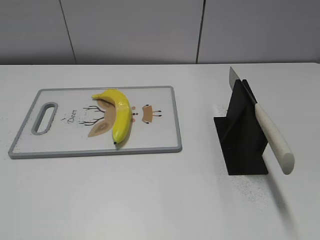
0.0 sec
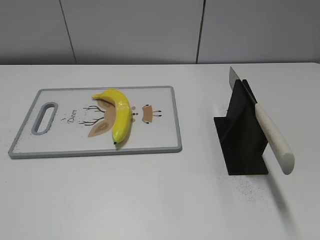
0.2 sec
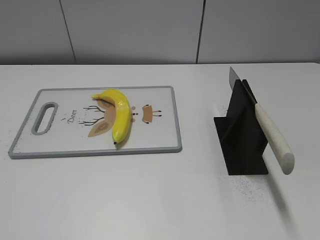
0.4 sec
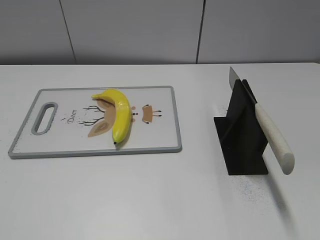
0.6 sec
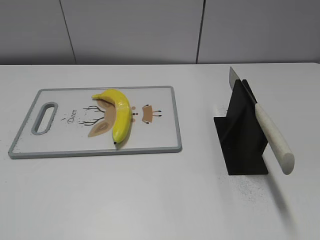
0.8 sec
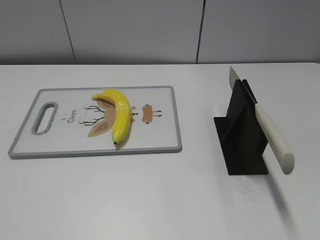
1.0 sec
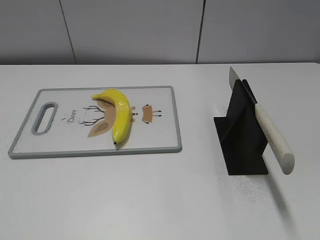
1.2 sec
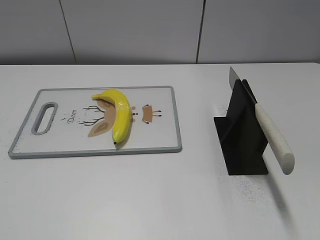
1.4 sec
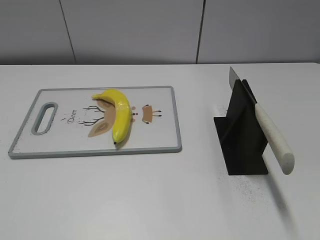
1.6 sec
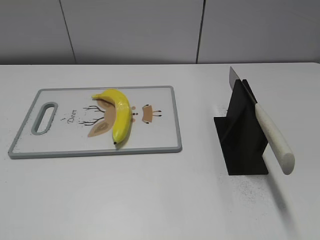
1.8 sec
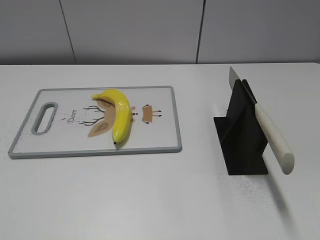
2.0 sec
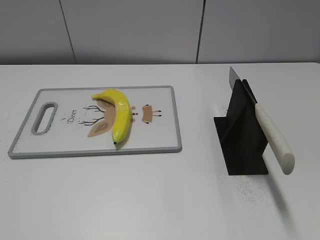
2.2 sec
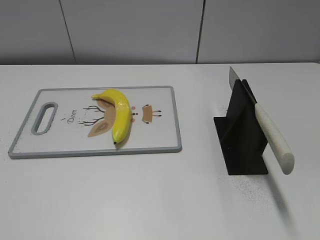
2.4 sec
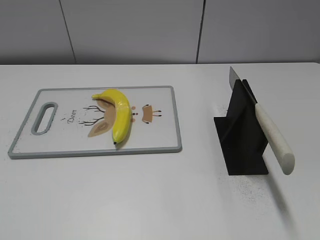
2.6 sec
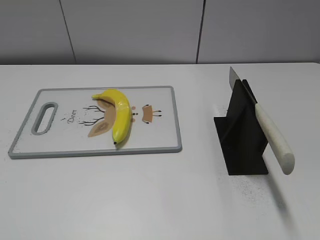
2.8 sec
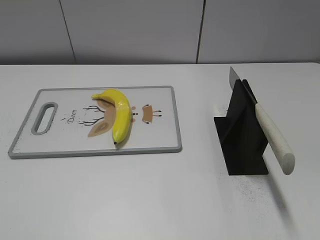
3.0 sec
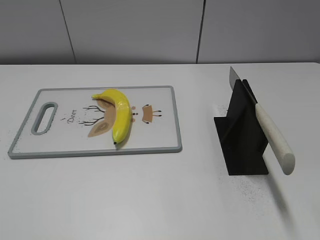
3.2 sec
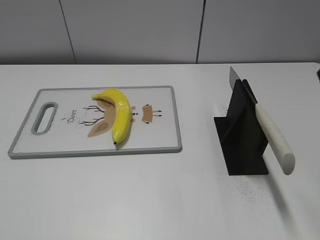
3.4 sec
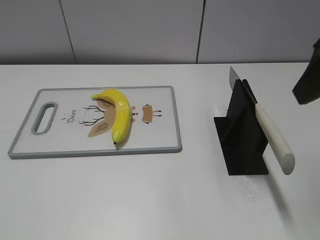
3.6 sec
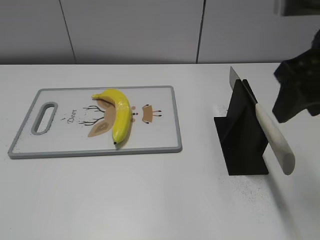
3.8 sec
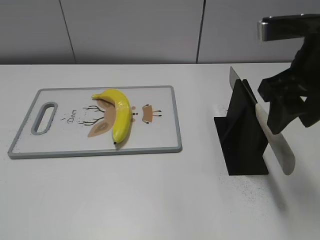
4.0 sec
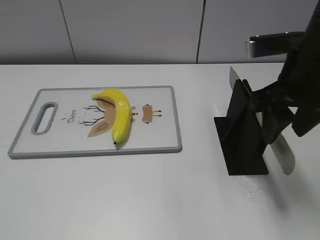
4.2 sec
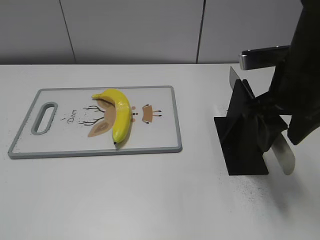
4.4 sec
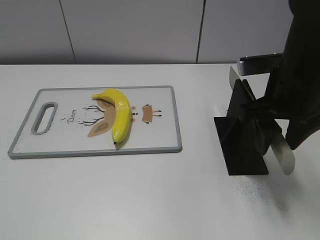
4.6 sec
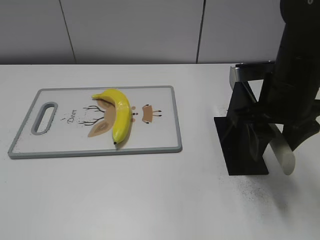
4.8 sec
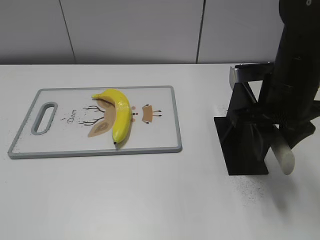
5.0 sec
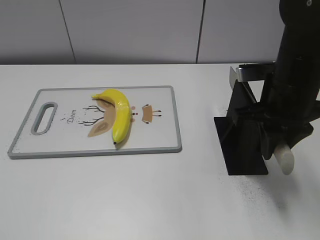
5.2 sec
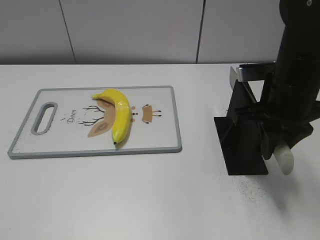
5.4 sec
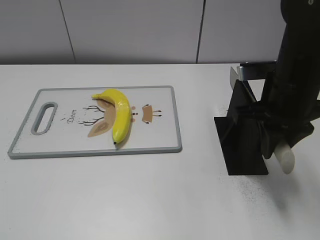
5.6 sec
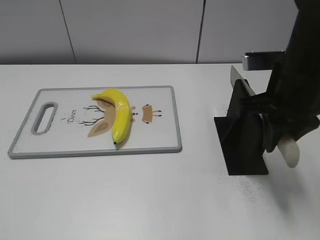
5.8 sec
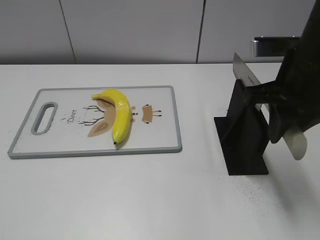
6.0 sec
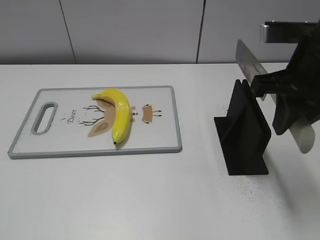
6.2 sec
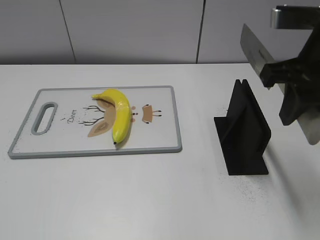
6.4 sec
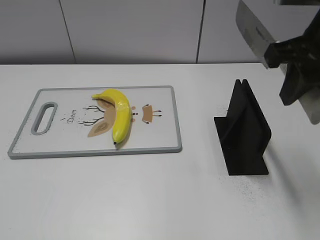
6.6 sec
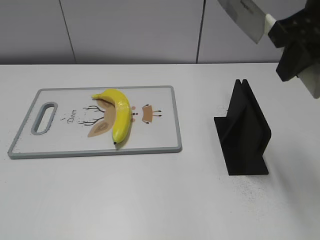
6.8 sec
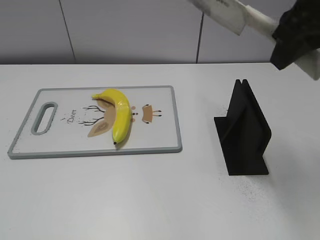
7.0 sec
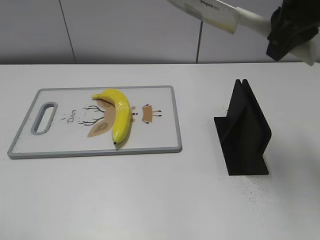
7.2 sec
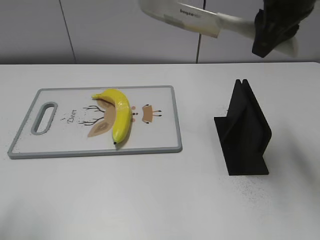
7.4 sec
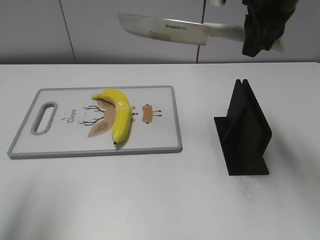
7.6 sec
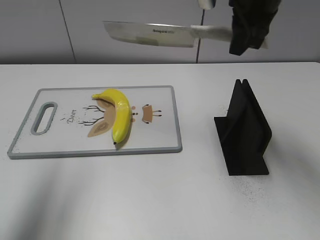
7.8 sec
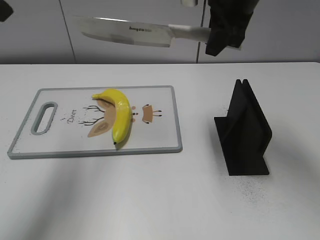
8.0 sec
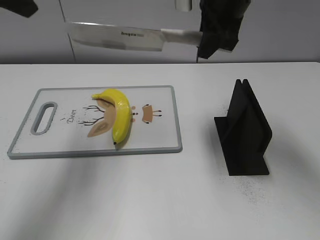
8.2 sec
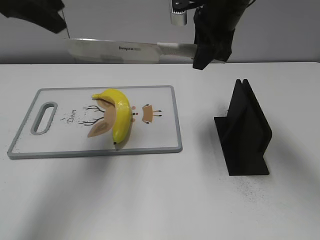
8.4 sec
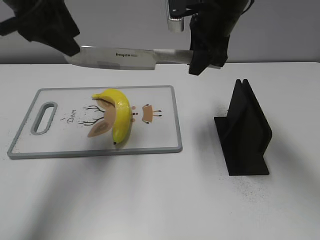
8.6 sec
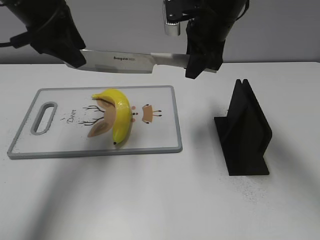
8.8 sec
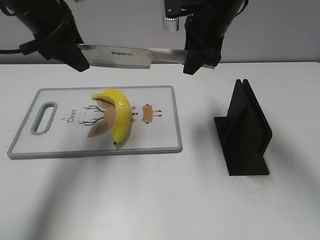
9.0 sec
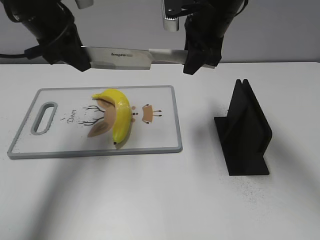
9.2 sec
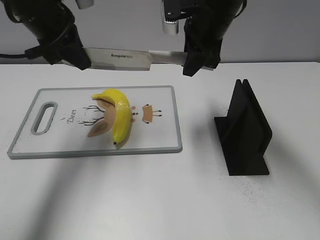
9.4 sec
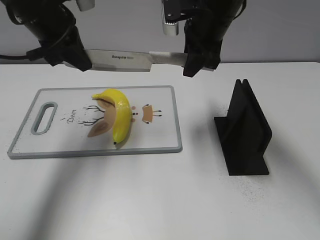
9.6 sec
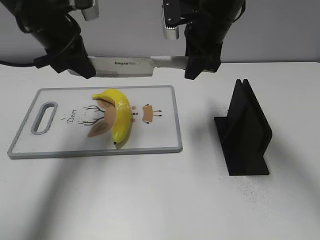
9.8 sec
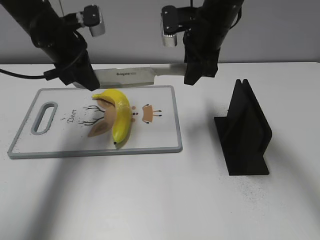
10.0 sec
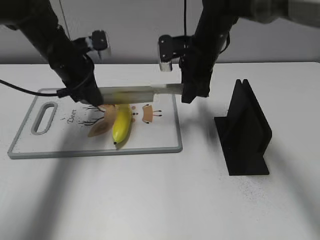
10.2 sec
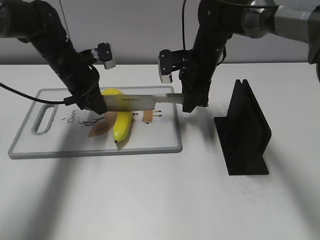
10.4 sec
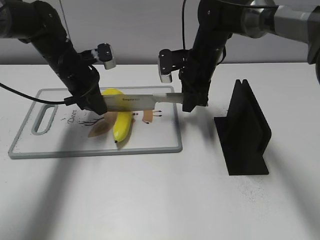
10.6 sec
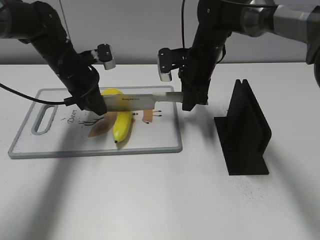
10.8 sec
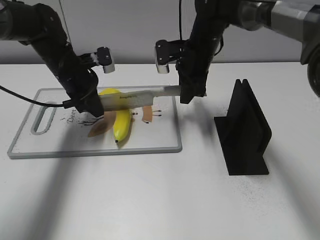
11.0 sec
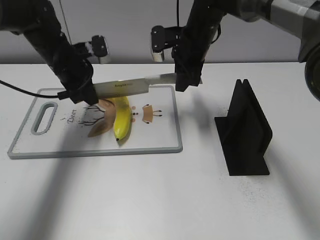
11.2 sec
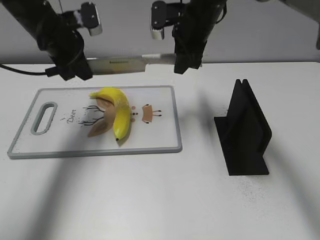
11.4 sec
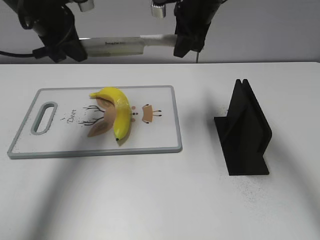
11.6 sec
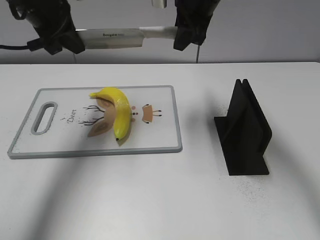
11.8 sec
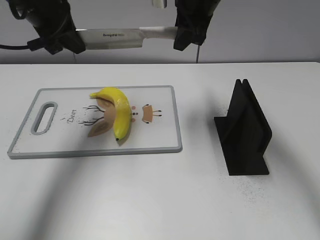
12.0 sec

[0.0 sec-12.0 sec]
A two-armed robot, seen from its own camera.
Task of the whole recording: cut plastic banana.
Step, 0.0 sec to 6.4 sec: Grab the knife handle with your right hand.
Step, 6.6 sec to 11.6 sec: Lift the knife with your right hand.
3.0 sec to 4.4 sec: The right gripper travels forward, downward and to the left by about 20 cm.
4.4 sec to 6.0 sec: The right gripper closes.
6.0 sec to 7.6 sec: The right gripper moves forward and upward, some 10 cm; the left gripper heads forward and upward, covering some 20 cm.
7.6 sec to 9.0 sec: The left gripper heads forward and to the right, covering some 25 cm, while the right gripper moves downward, forward and to the left, roughly 10 cm.
9.0 sec to 10.4 sec: The grippers both shift downward by roughly 15 cm. The left gripper closes up.
10.4 sec to 12.0 sec: Both grippers travel together upward, approximately 15 cm.

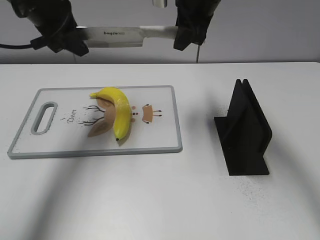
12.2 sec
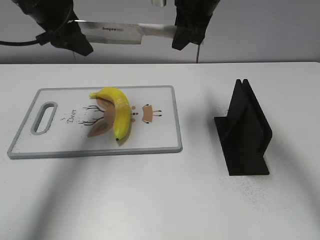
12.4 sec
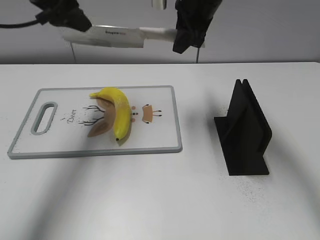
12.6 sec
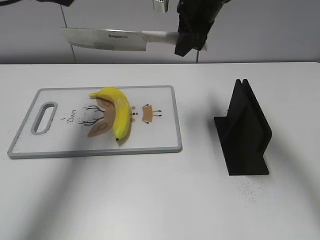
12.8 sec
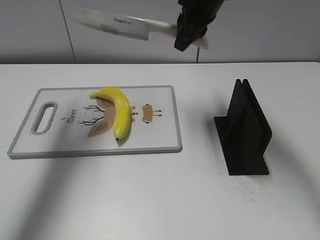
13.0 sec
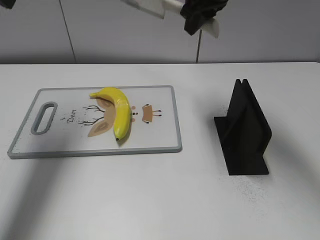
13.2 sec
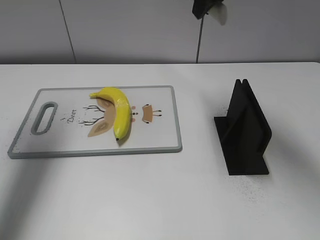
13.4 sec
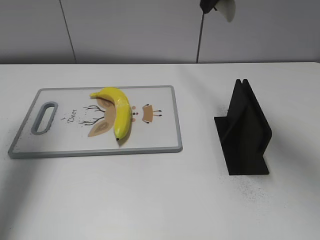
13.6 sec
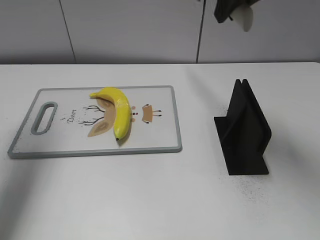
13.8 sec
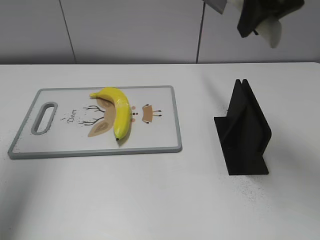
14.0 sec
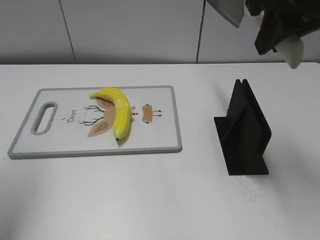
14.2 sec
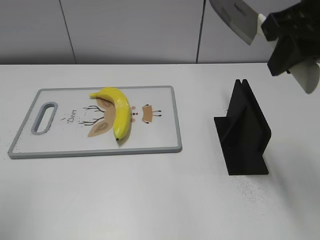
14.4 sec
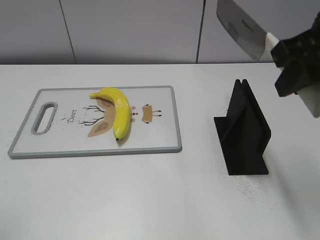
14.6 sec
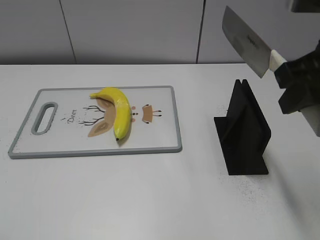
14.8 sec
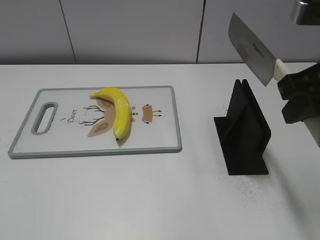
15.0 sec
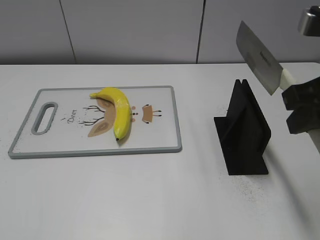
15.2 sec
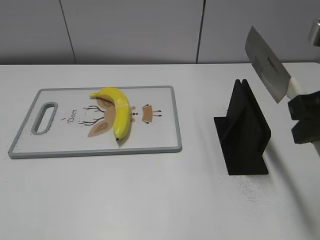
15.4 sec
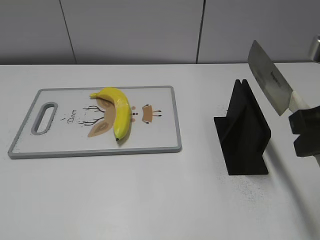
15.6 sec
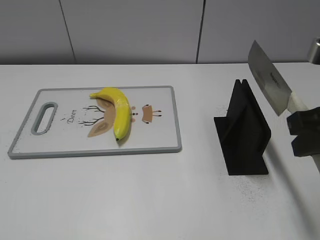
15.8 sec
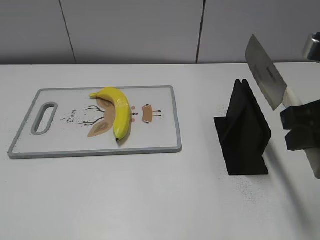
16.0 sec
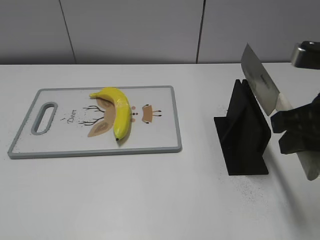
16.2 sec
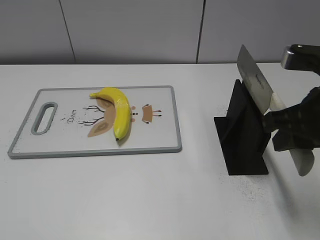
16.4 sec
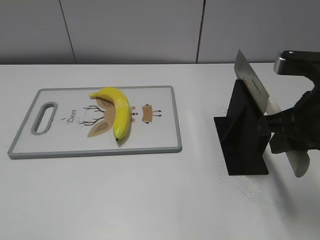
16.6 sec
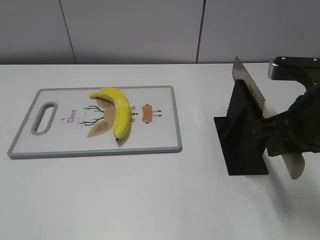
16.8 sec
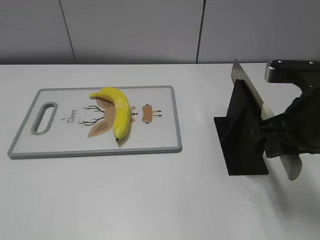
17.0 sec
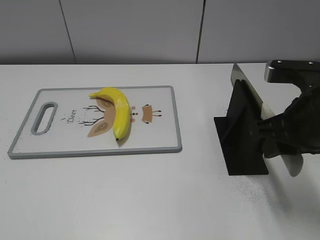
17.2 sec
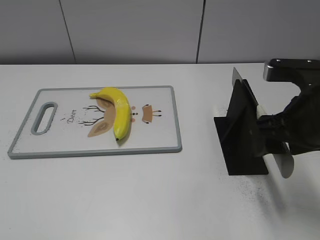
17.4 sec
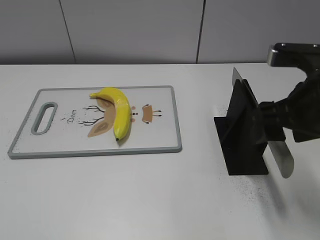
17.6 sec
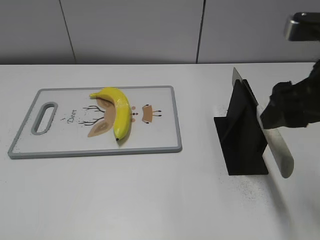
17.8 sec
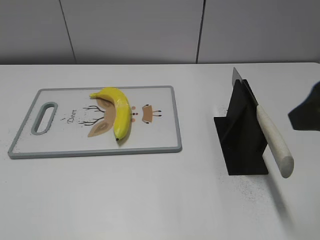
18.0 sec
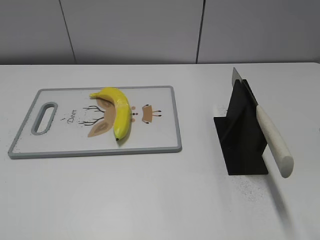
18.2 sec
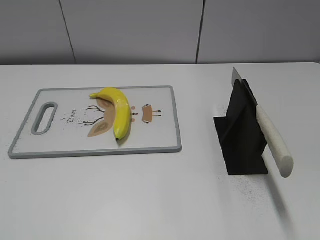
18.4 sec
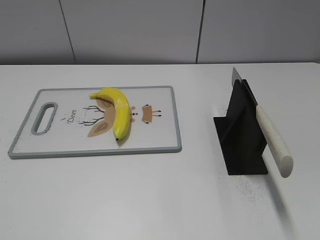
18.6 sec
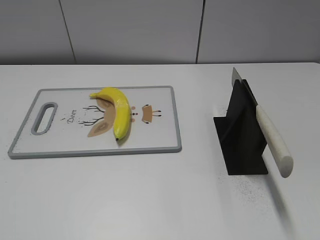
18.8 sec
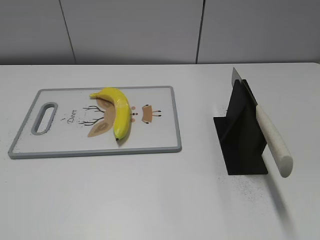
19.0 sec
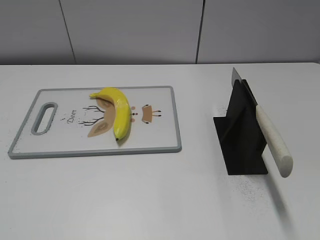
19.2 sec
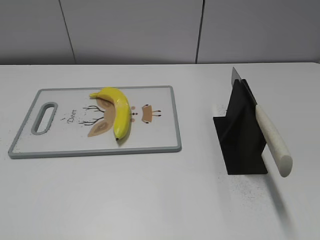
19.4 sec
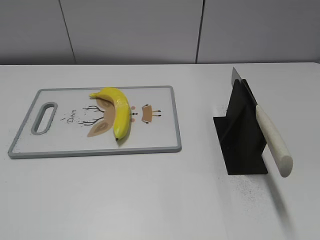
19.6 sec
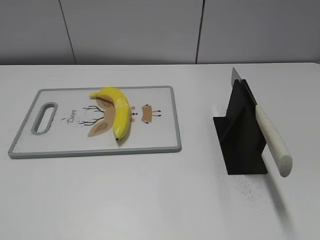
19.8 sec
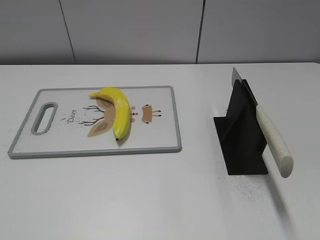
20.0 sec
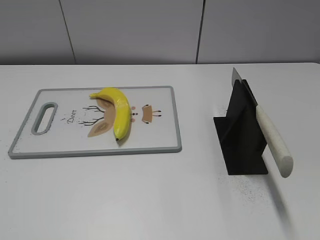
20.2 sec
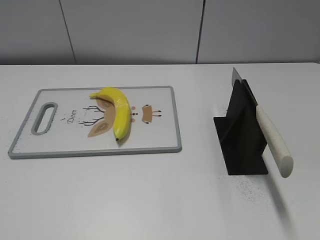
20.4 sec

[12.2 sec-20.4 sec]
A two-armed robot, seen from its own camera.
Task of the whole recording: cut plastic banana.
Step, 12.2 sec to 13.4 sec: Cut the banana with your right hand.
Step, 13.6 sec to 15.4 sec: Lift the knife with your right hand.
Step, 15.6 sec to 20.4 sec: Place the knife on the storage rack with your right hand.
12.2 sec to 13.8 sec: The left gripper travels to the left, upward and backward by roughly 20 cm, while the right gripper shifts roughly 15 cm backward, upward and to the right.
13.8 sec to 15.4 sec: The right gripper travels backward, downward and to the right by some 20 cm. The left gripper heads backward, covering some 30 cm.
15.4 sec to 17.2 sec: The right gripper heads downward, covering some 5 cm.
17.2 sec to 18.8 sec: The right gripper heads backward and to the right, covering approximately 25 cm, and opens.

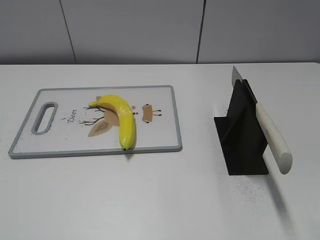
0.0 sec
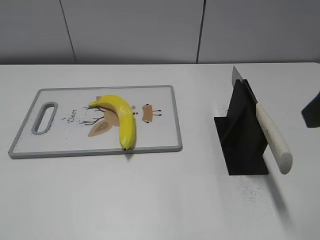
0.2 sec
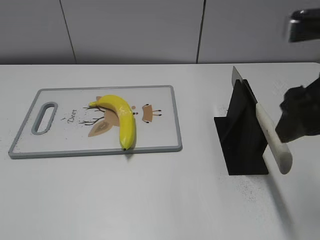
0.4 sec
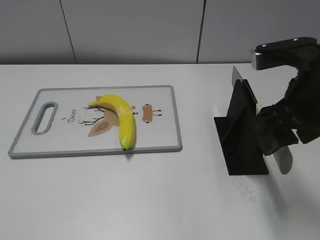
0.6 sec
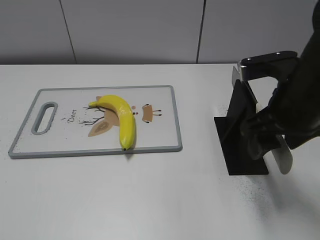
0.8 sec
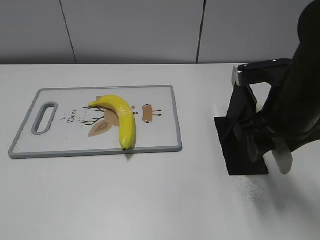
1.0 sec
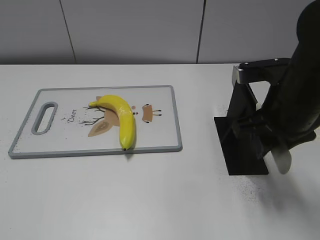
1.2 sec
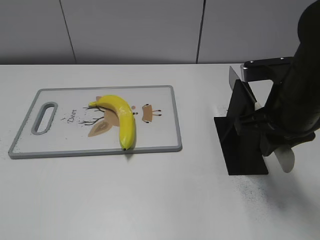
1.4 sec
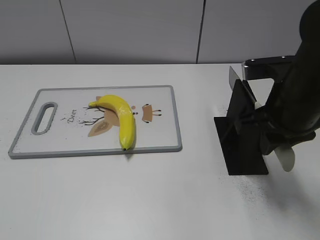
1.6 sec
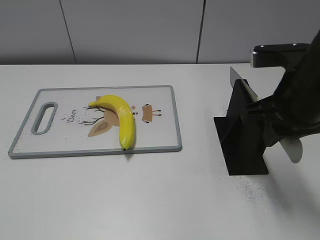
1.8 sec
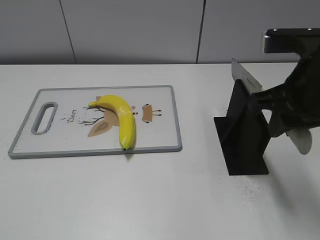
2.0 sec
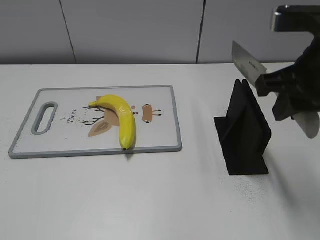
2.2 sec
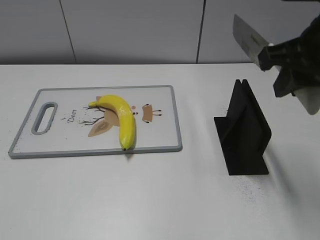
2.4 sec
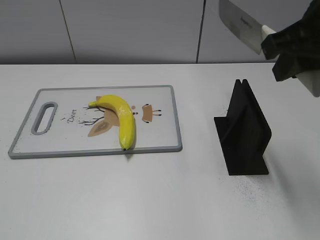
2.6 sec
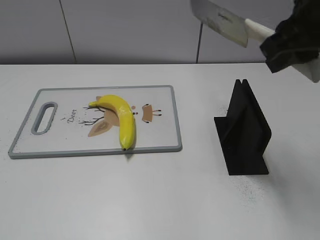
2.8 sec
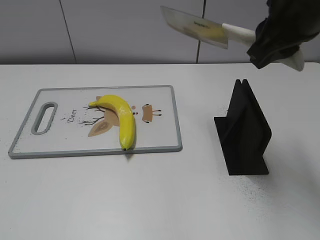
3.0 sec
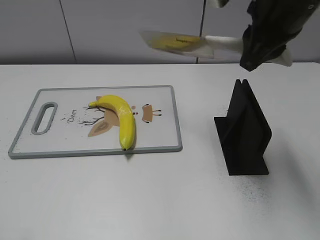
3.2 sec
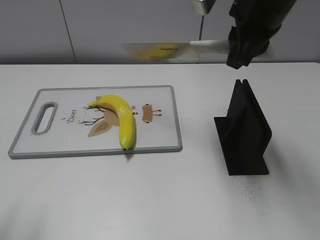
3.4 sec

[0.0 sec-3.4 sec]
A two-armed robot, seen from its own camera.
Task of the whole recording: cut plastic banana.
Step, 0.0 sec to 2.4 sec: Grab the knife handle with your right hand.
0.0 sec to 1.6 sec: The right gripper shifts some 20 cm forward, downward and to the left, and closes up.
1.6 sec to 3.4 sec: The left gripper moves forward and upward, some 10 cm; the right gripper shifts some 10 cm upward and forward.
